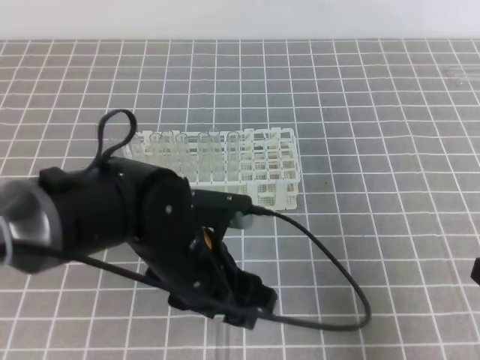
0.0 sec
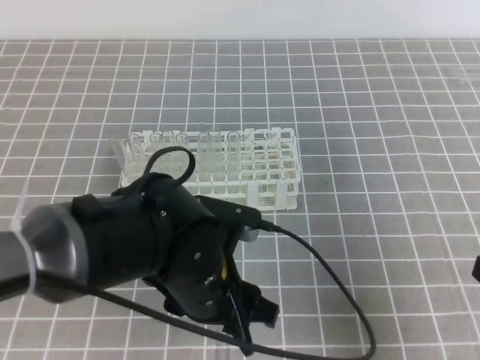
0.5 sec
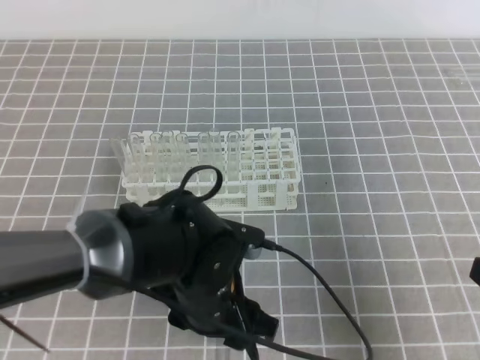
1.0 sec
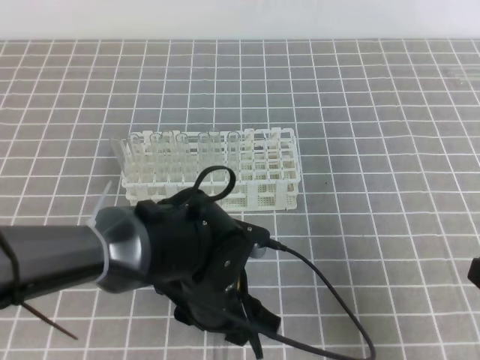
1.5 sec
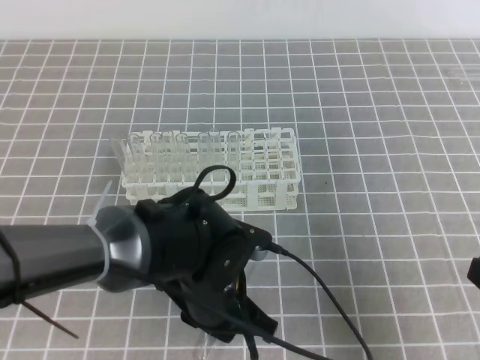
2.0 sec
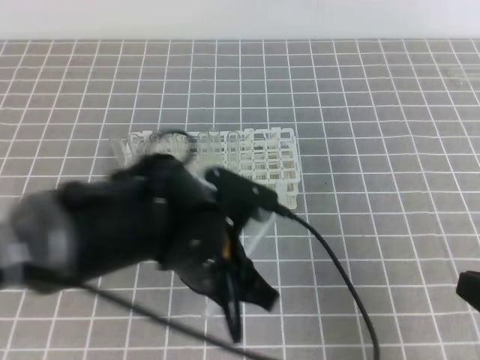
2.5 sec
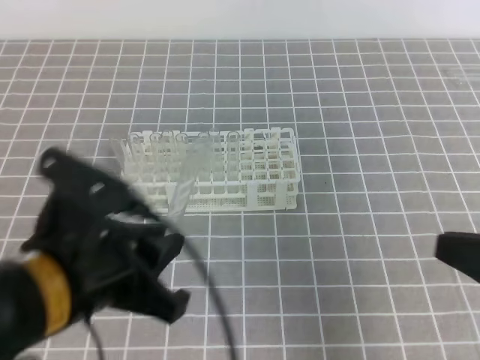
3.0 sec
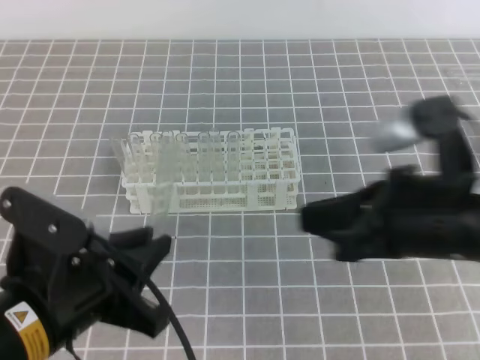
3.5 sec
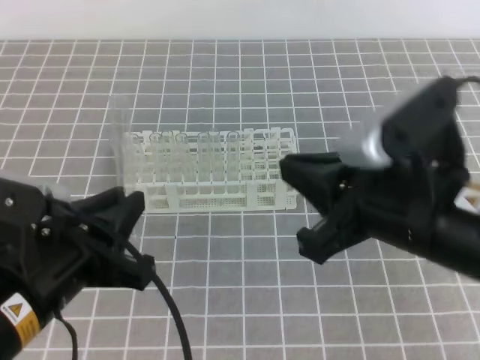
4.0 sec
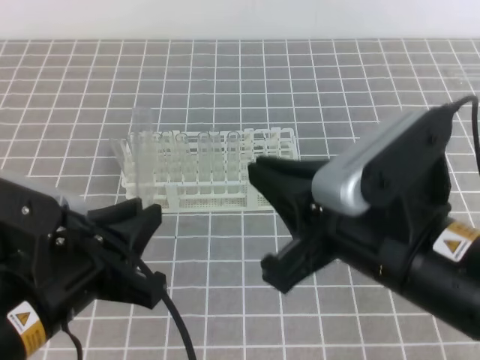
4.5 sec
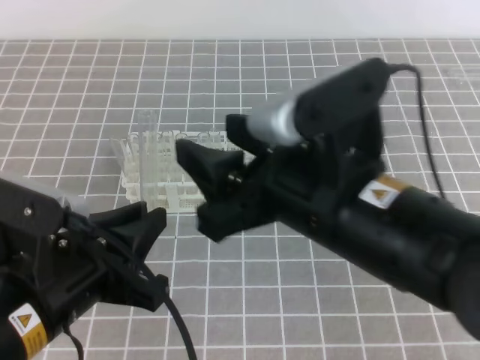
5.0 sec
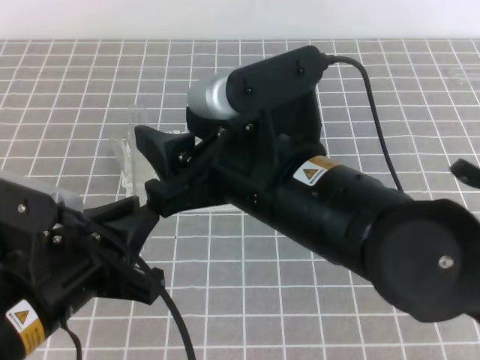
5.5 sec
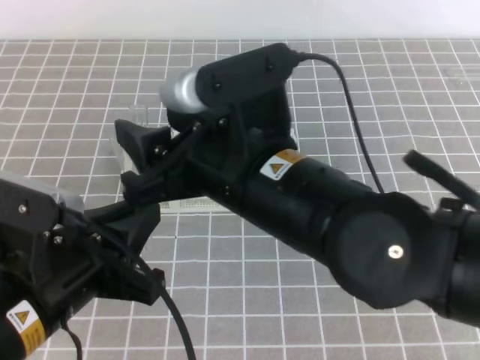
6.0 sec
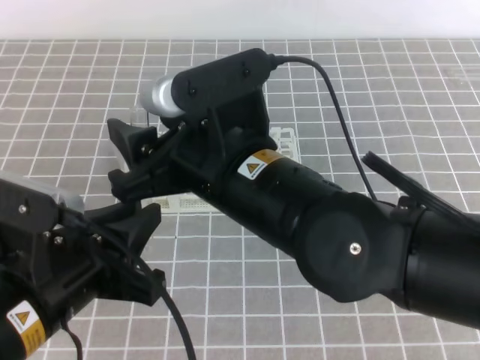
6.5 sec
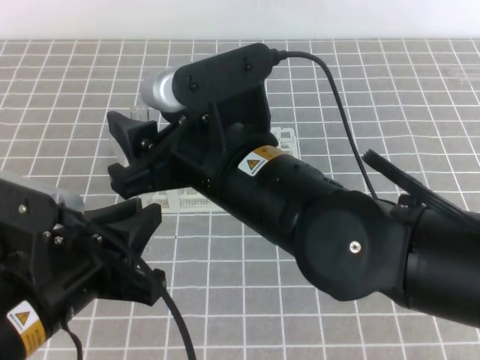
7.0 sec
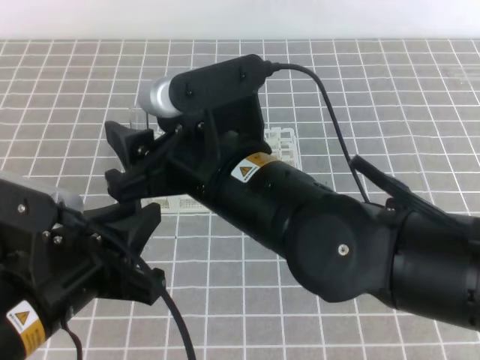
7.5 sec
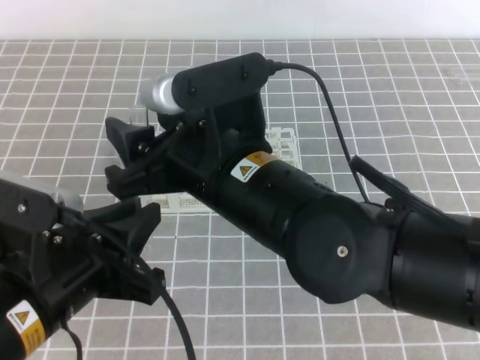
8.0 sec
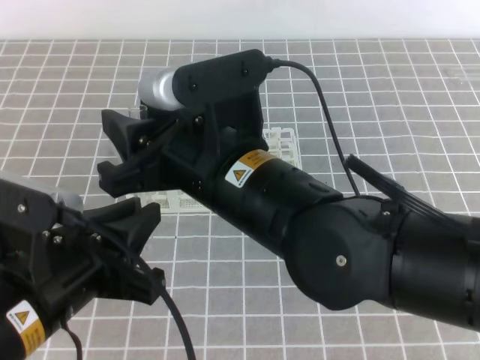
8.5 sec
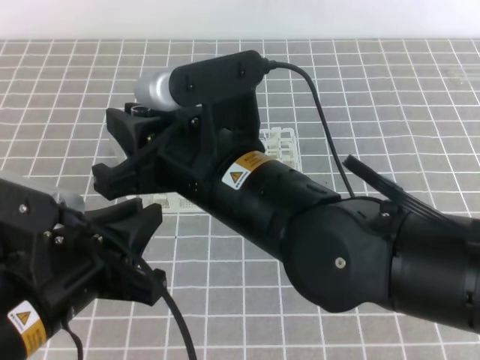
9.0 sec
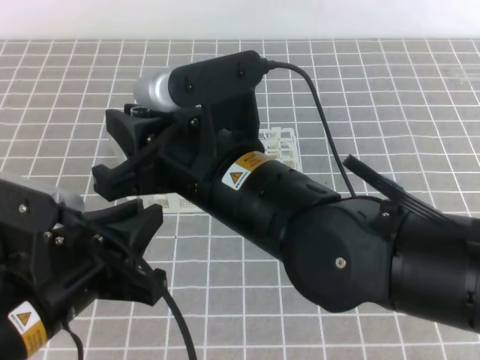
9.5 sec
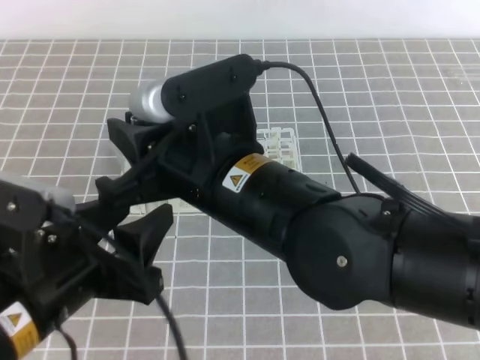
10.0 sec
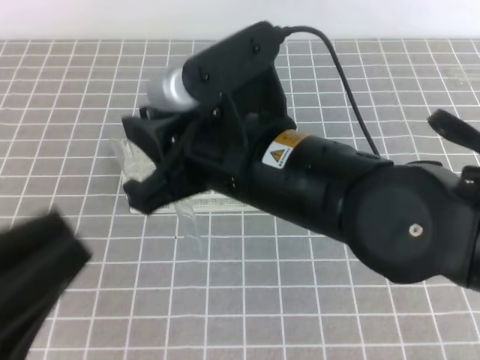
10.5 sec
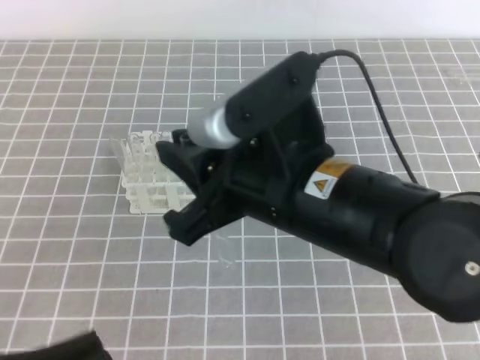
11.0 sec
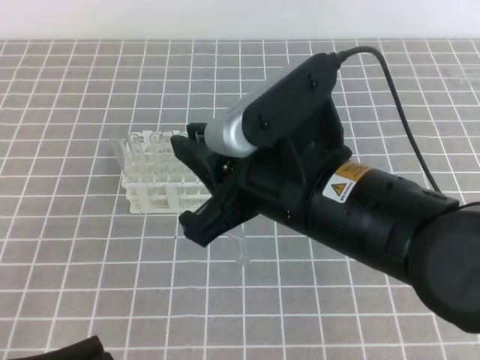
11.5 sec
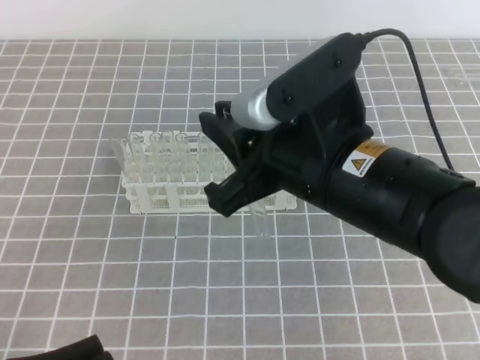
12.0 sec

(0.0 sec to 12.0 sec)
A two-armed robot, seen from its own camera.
0.0 sec - 2.0 sec: The left gripper moves downward, about 5 cm, and closes its fingers.
2.0 sec - 4.0 sec: The right gripper is displaced to the left, forward and upward by about 15 cm. Meanwhile the left gripper is displaced to the left, upward and backward by roughly 20 cm.
4.0 sec - 6.0 sec: The right gripper moves to the left, approximately 10 cm, and opens its fingers.
6.0 sec - 8.0 sec: The grippers stay close to where they were, moving slightly.
8.0 sec - 10.0 sec: The left gripper opens, while the right gripper closes.
10.0 sec - 12.0 sec: The left gripper heads backward, downward and to the left, covering about 15 cm, and closes up. The right gripper shifts approximately 10 cm to the right.

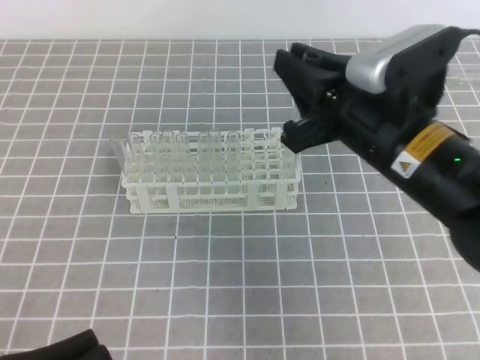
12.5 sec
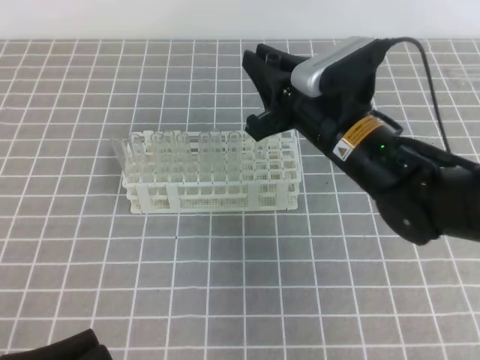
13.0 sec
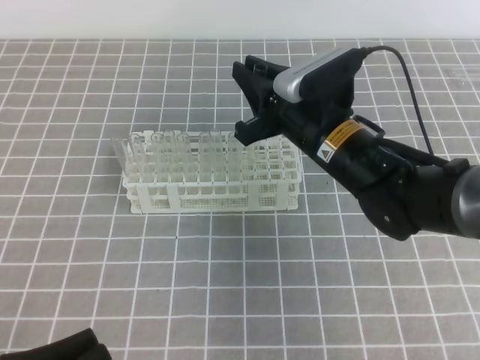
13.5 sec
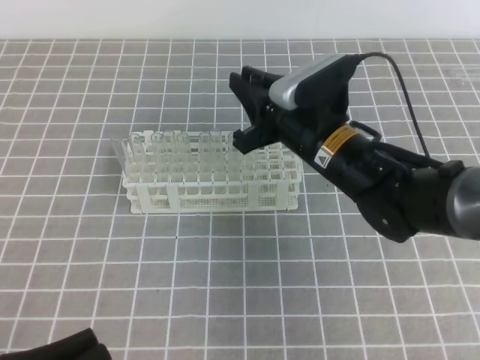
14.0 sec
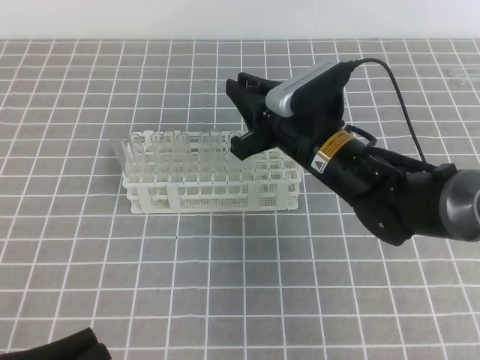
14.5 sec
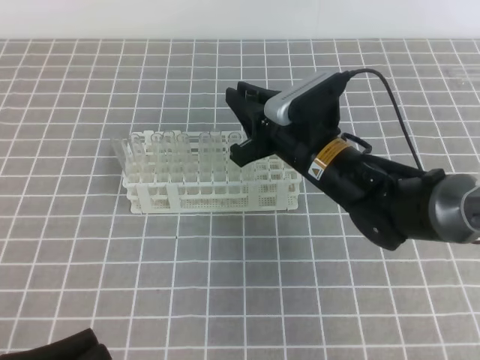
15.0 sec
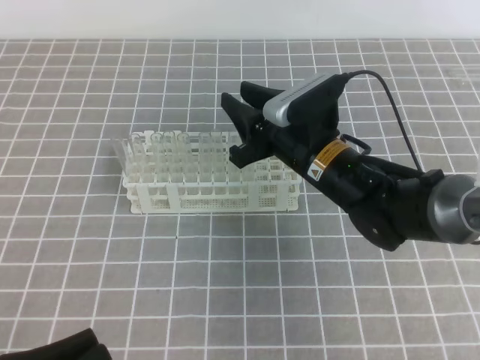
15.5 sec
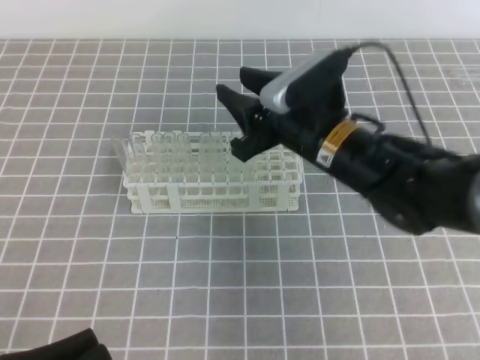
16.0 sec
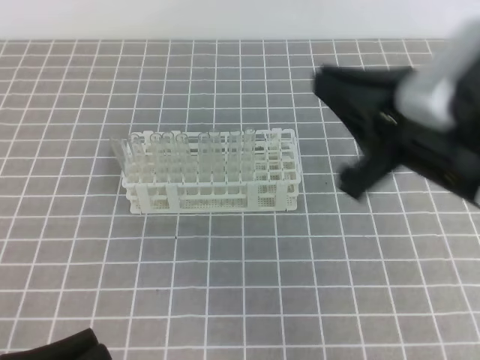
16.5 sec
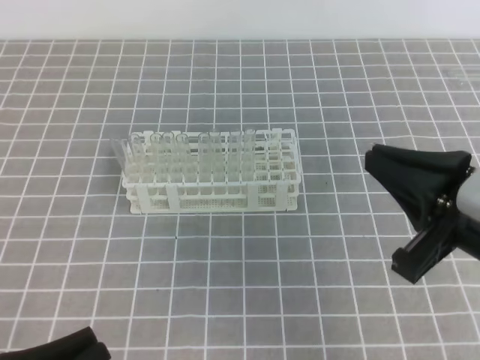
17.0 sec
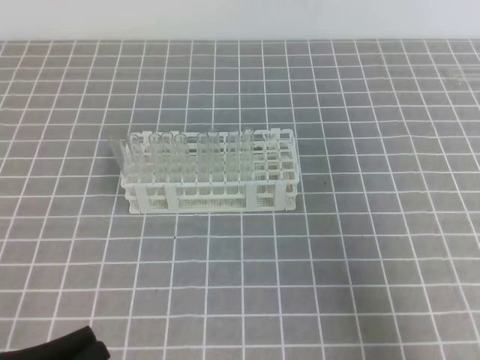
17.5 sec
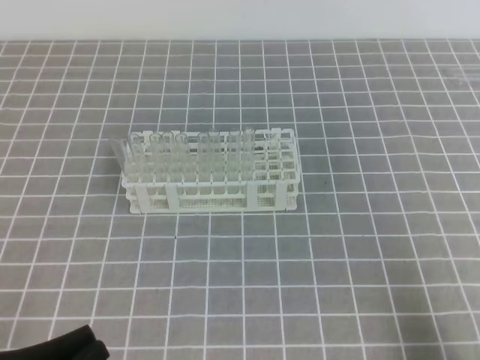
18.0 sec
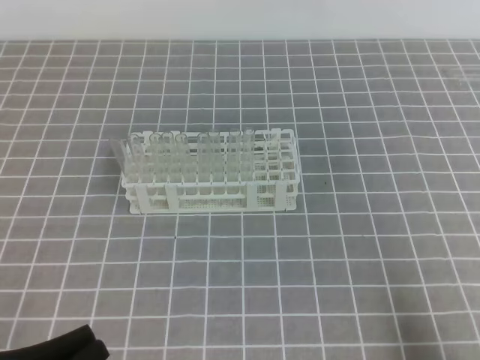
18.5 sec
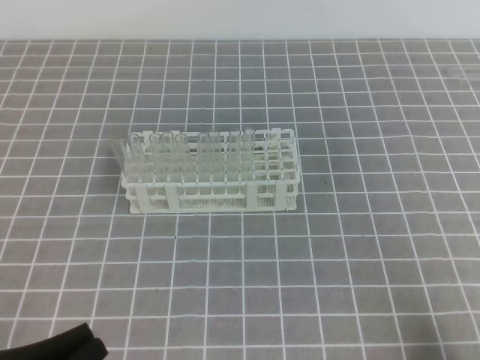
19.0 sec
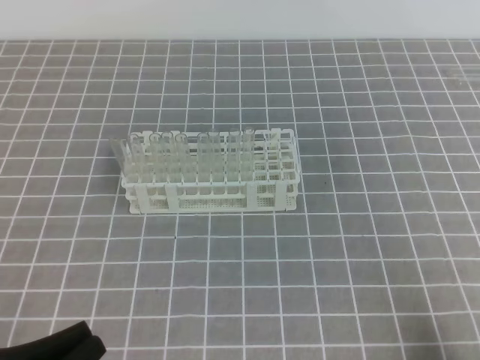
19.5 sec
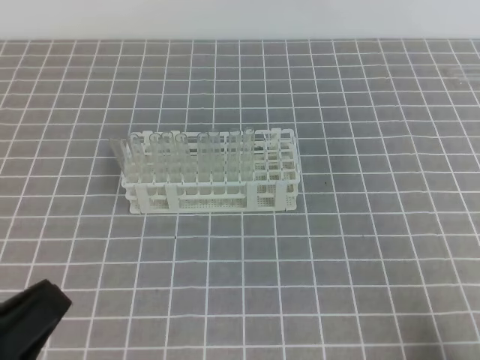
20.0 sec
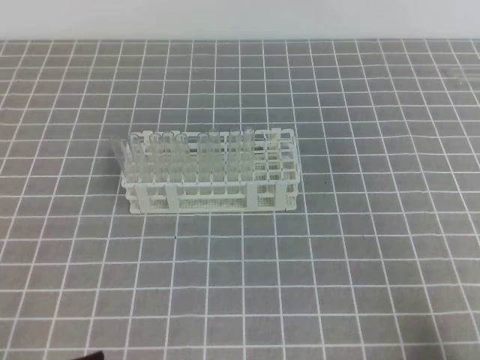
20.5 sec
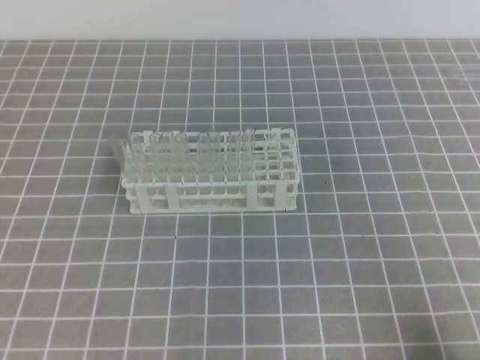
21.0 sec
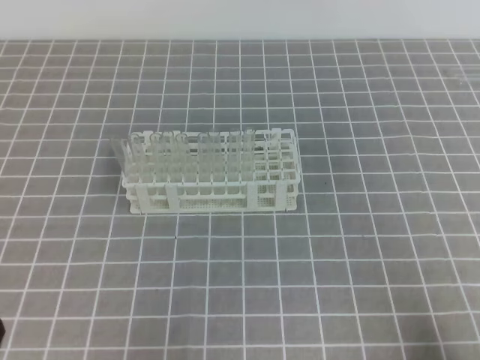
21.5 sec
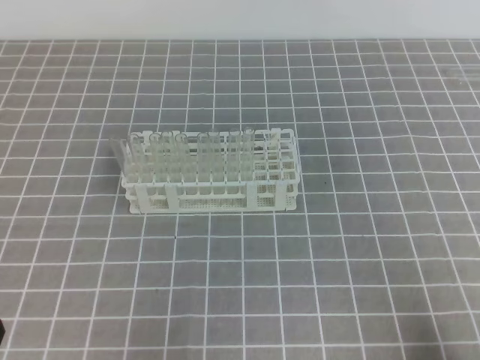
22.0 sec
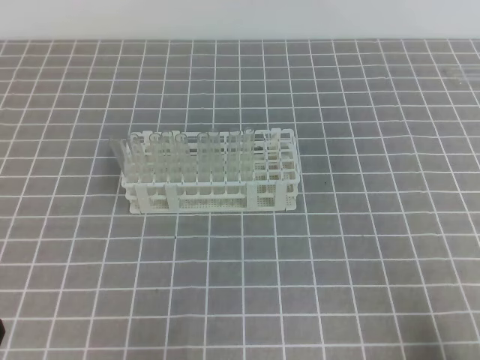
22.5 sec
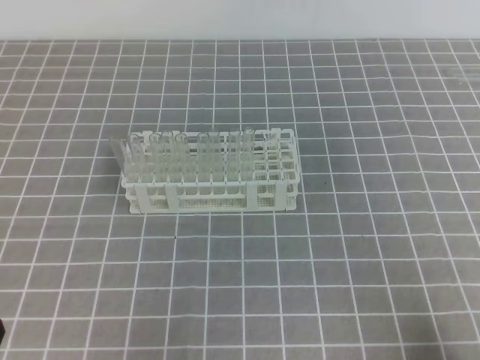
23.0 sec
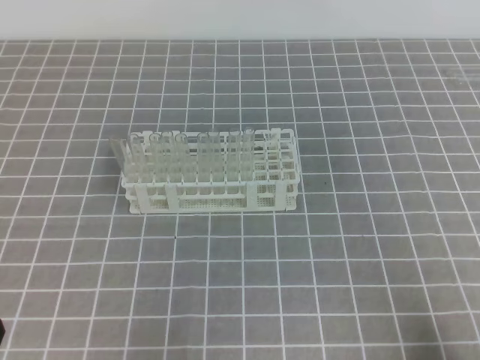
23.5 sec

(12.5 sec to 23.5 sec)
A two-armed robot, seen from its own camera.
12.5 sec - 14.5 sec: The right gripper is displaced forward and downward by approximately 15 cm.
14.5 sec - 16.0 sec: The right gripper opens its fingers.
16.0 sec - 18.0 sec: The right gripper moves backward and to the right, approximately 35 cm, and closes its fingers.
